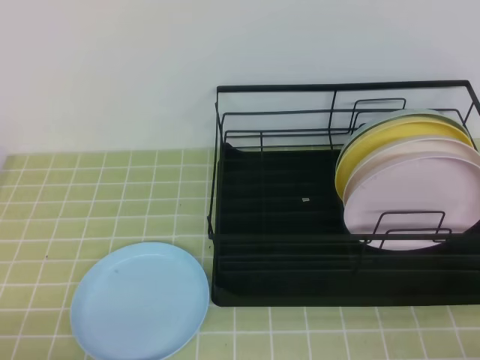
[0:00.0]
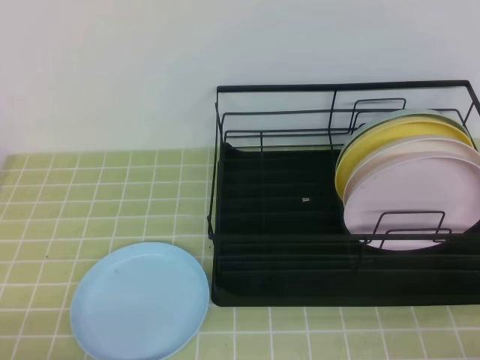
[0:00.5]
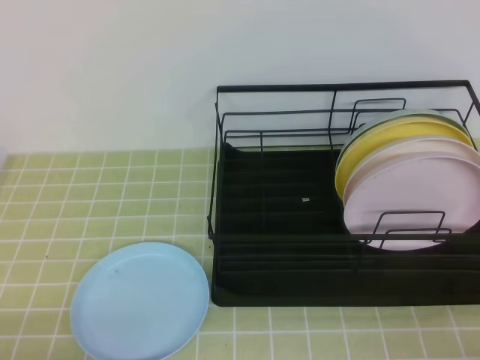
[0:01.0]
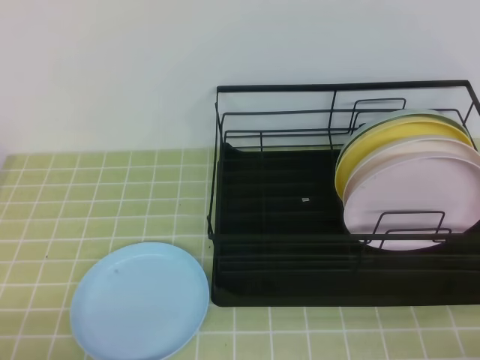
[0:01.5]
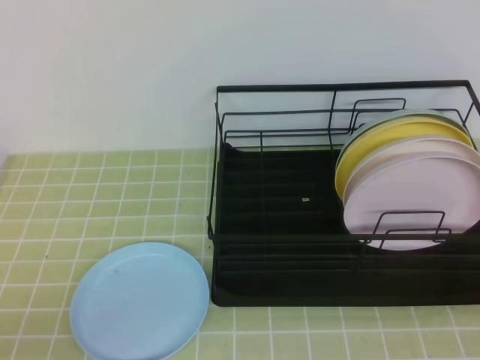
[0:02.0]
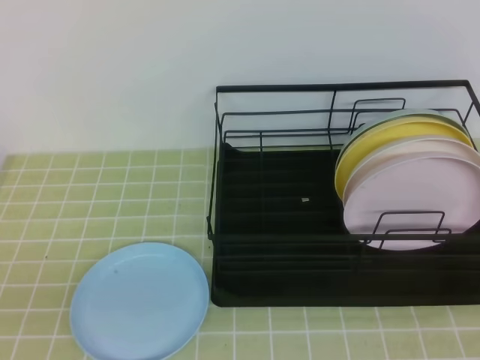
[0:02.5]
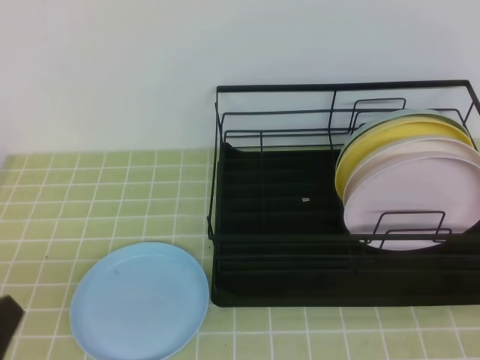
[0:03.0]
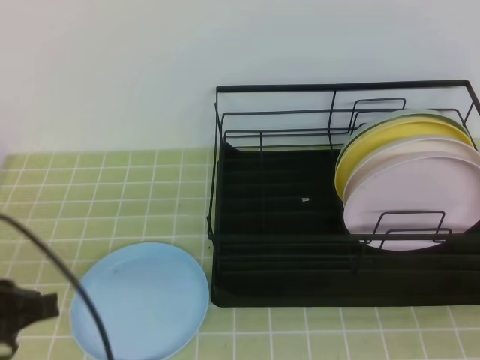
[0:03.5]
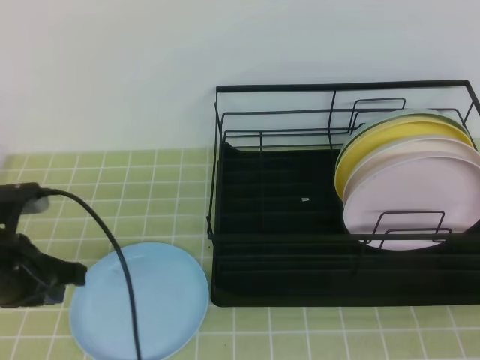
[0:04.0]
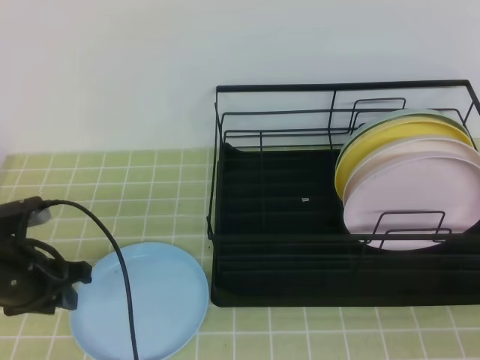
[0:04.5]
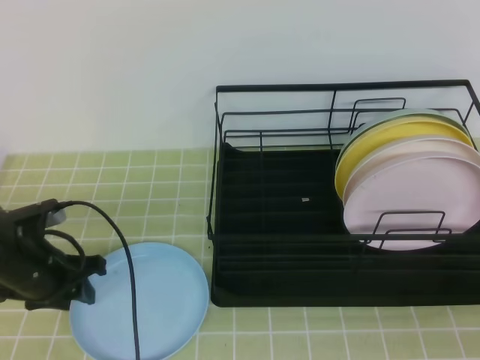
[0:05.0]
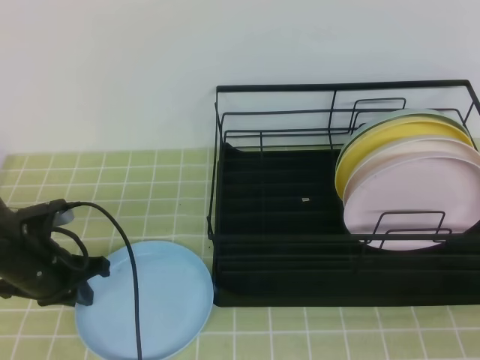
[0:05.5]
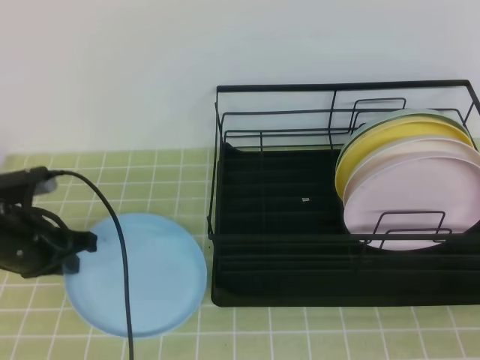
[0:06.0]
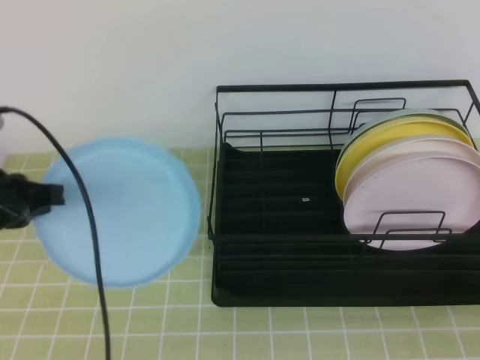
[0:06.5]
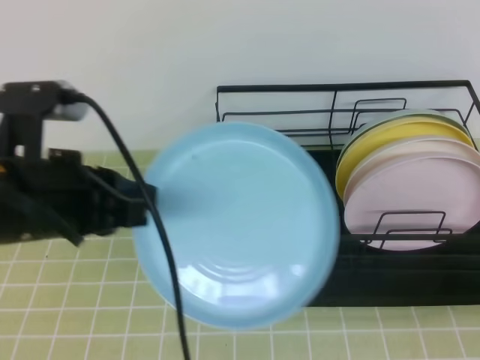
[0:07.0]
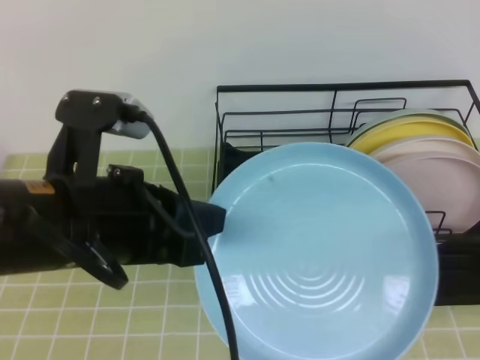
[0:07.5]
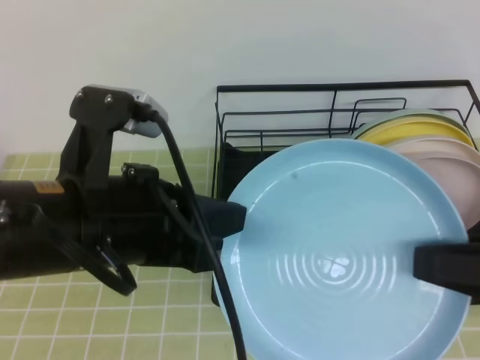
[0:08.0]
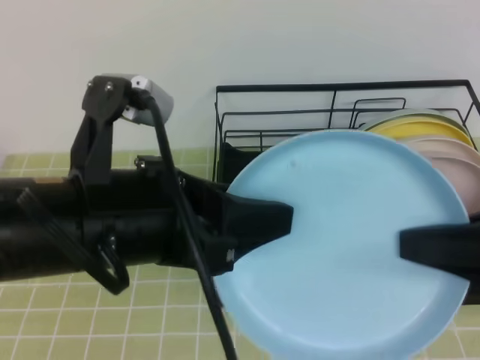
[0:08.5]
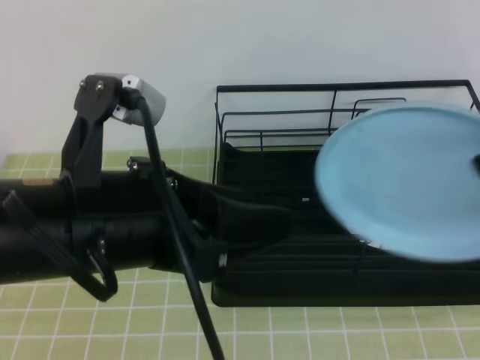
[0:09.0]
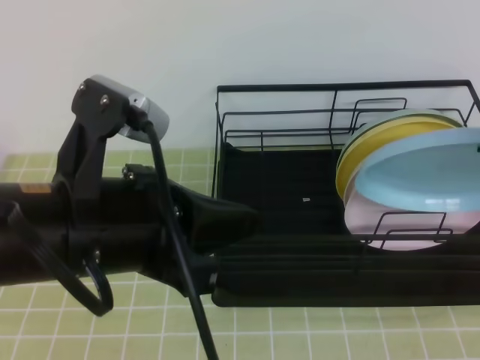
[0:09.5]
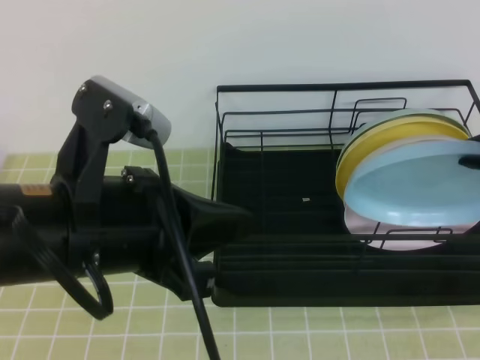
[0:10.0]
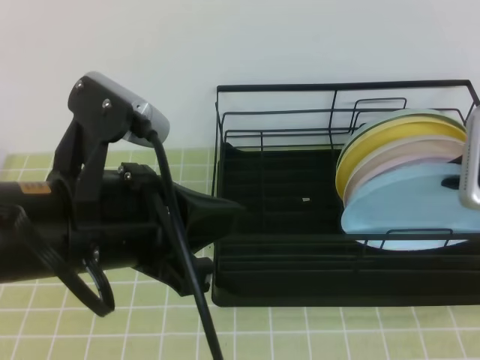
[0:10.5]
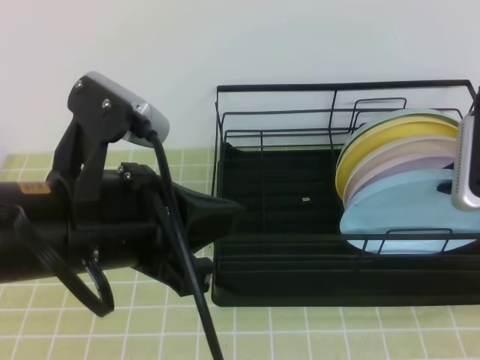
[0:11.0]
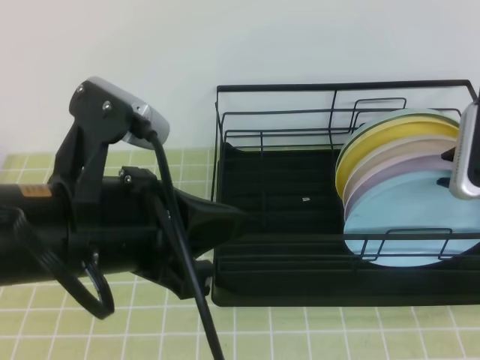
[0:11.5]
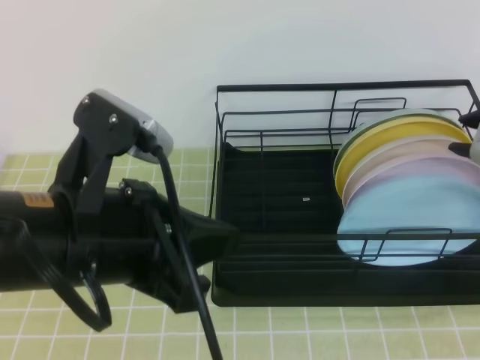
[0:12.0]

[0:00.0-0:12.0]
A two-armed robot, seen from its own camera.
Step, 0:00.0 to 0:04.5: Left grab the blue plate.
Step, 0:07.0 to 0:10.0: Right place it at the front of the shelf.
0:02.0 to 0:04.0: The left gripper is displaced forward by roughly 20 cm.
0:04.0 to 0:06.0: The left gripper heads forward, covering about 5 cm, goes downward and returns, approximately 10 cm each way, and opens and closes again.
0:06.0 to 0:08.0: The left gripper is displaced upward, to the right and backward by approximately 25 cm; the right gripper heads forward, covering approximately 10 cm, and opens up.
0:08.0 to 0:10.0: The right gripper moves forward, some 10 cm, and closes its fingers; the left gripper opens, then closes again.
0:10.0 to 0:12.0: The right gripper opens its fingers.

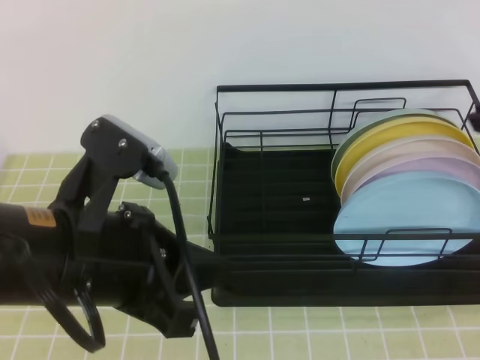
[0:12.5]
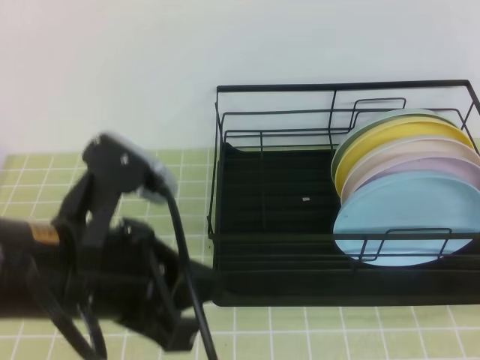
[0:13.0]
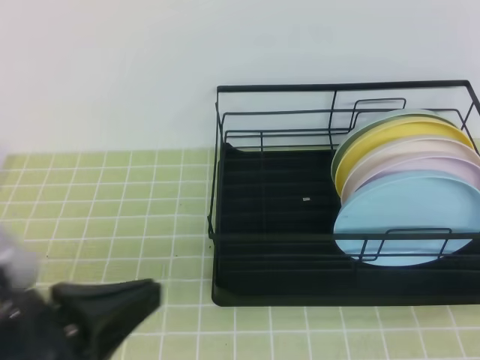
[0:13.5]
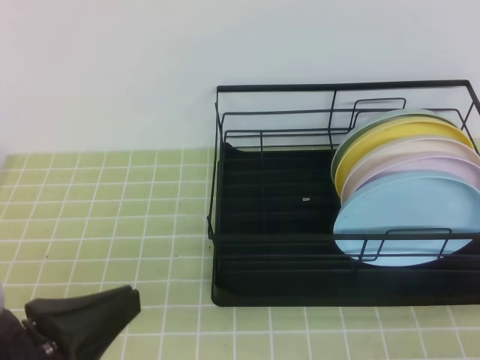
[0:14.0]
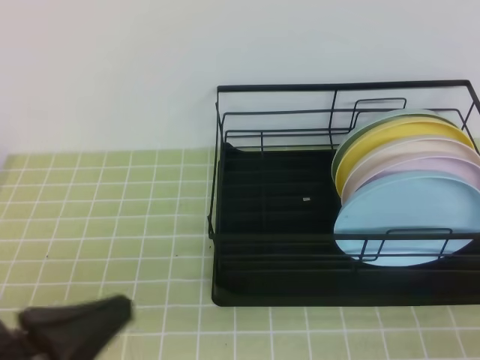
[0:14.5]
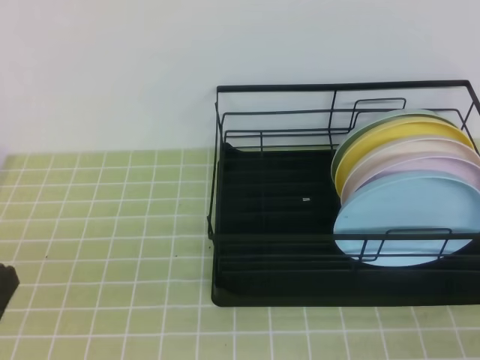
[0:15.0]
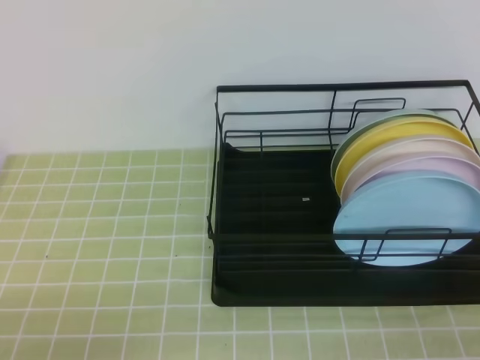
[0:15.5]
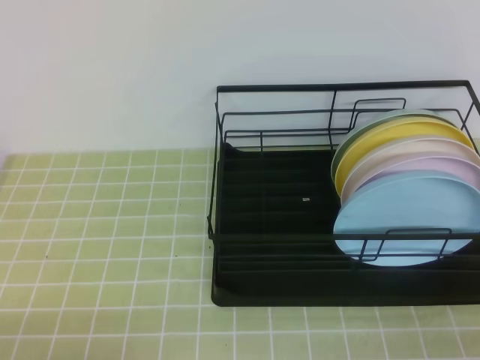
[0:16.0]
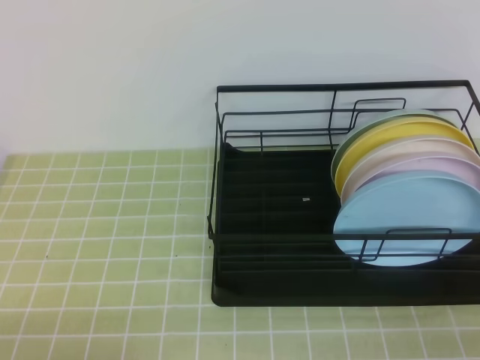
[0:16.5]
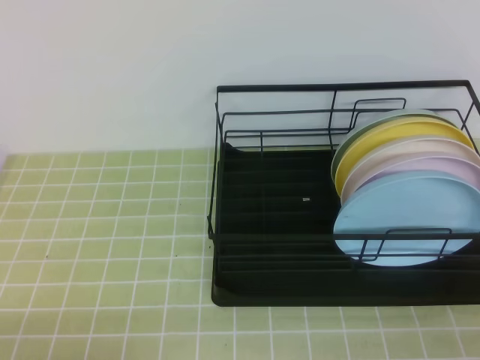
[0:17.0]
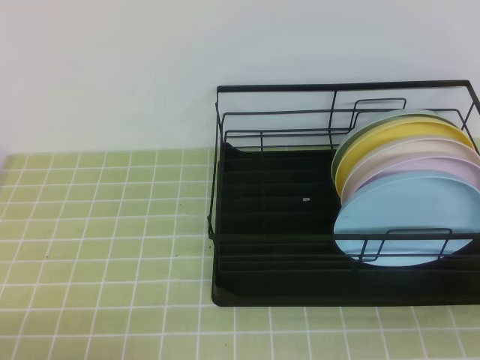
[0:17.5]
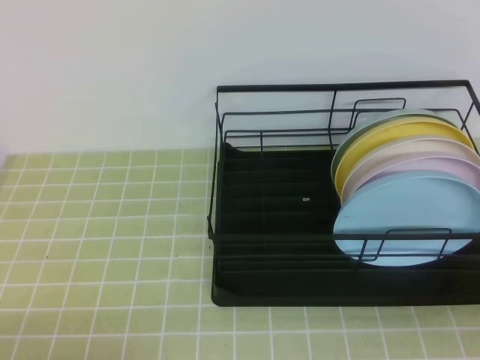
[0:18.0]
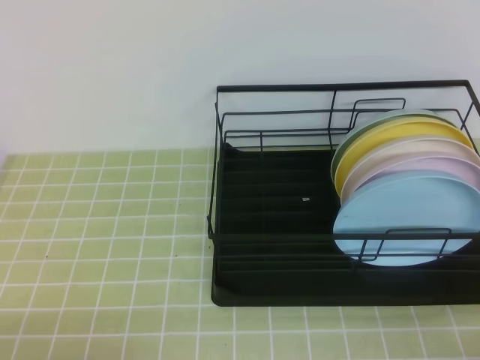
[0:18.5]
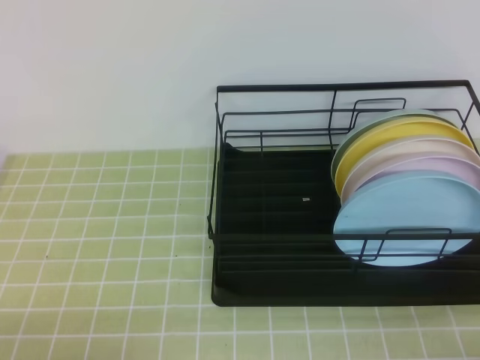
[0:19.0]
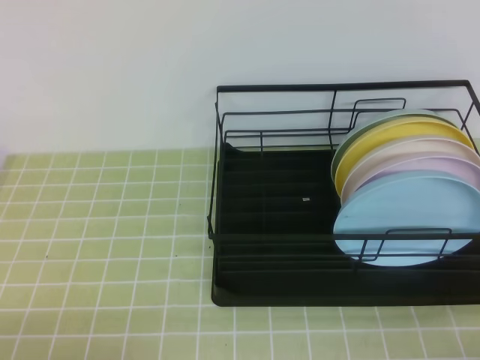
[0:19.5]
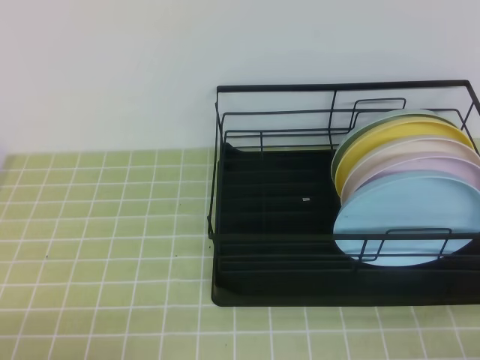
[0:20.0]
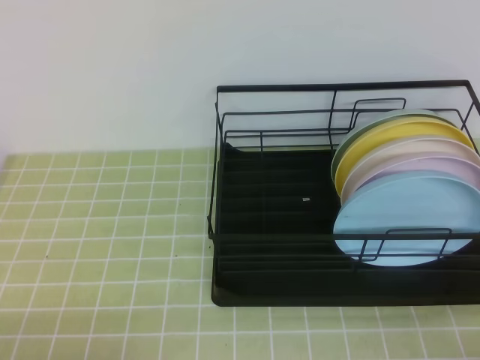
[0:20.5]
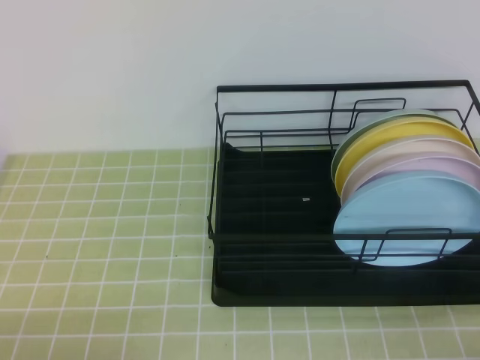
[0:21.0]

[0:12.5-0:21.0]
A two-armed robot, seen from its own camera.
0:12.5 to 0:14.5: The left gripper is displaced to the left, backward and downward by approximately 10 cm. The right gripper moves backward and downward, roughly 25 cm.
0:14.5 to 0:16.5: The left gripper travels downward and to the left by some 15 cm.
0:19.0 to 0:21.0: Both grippers stay put.
